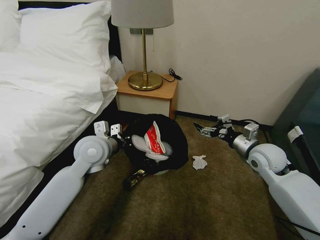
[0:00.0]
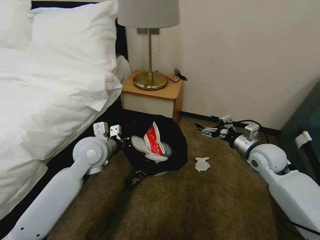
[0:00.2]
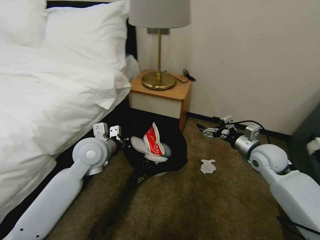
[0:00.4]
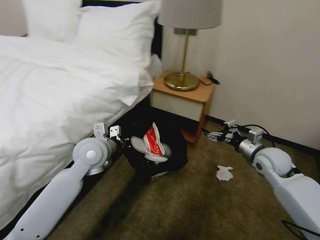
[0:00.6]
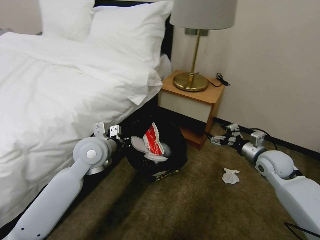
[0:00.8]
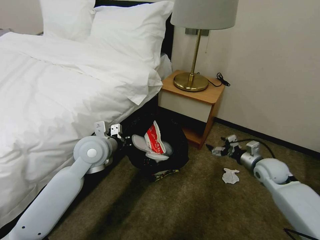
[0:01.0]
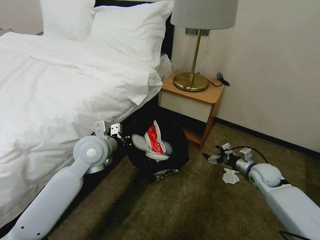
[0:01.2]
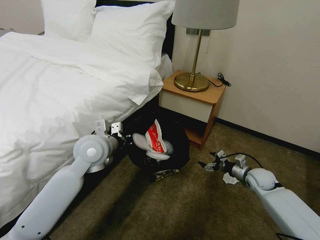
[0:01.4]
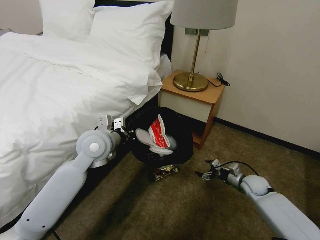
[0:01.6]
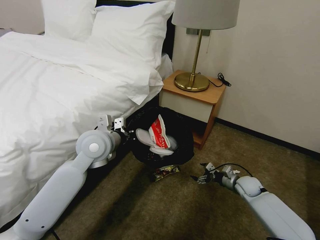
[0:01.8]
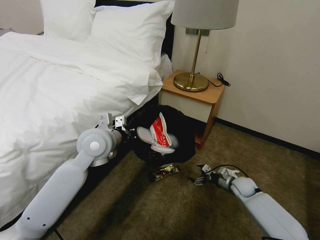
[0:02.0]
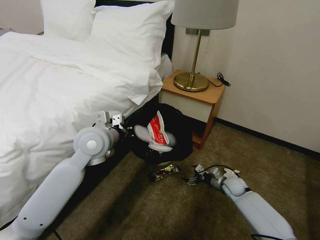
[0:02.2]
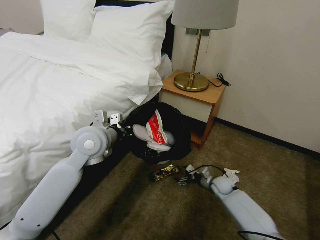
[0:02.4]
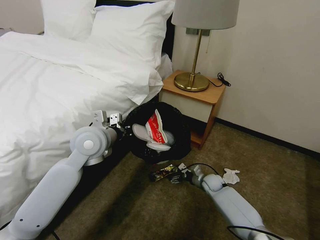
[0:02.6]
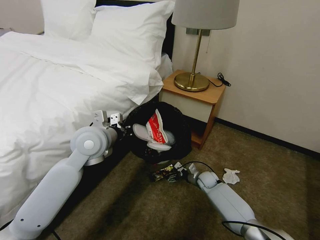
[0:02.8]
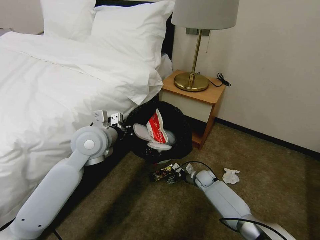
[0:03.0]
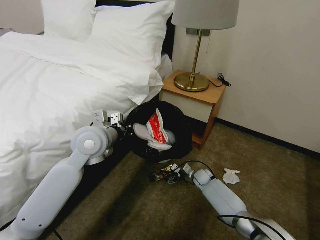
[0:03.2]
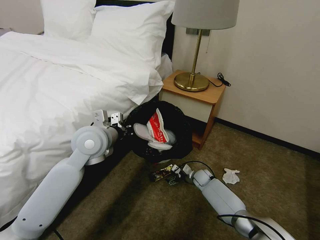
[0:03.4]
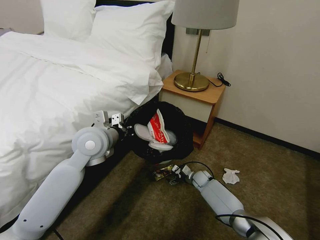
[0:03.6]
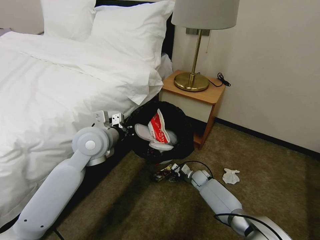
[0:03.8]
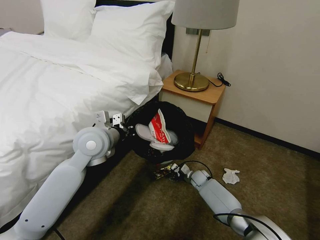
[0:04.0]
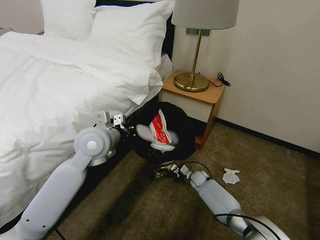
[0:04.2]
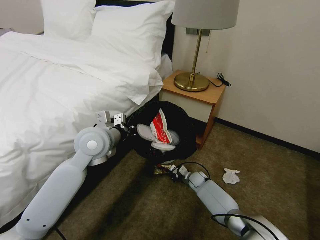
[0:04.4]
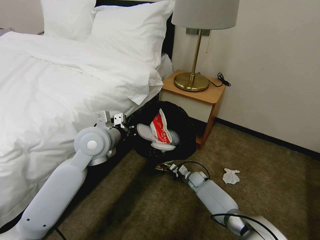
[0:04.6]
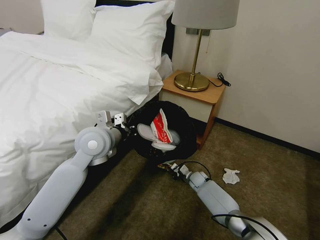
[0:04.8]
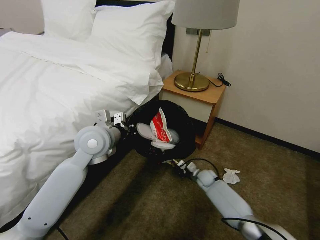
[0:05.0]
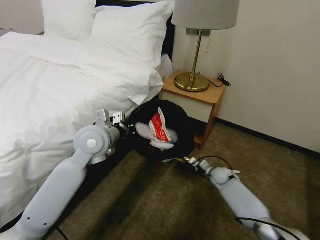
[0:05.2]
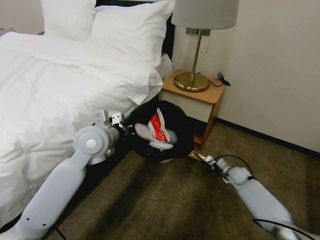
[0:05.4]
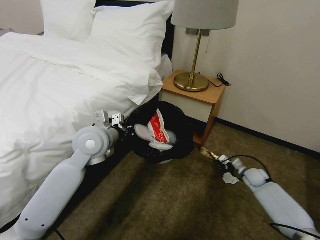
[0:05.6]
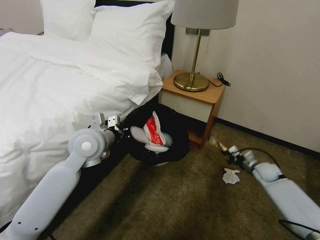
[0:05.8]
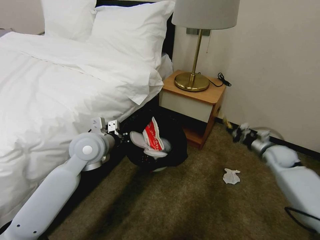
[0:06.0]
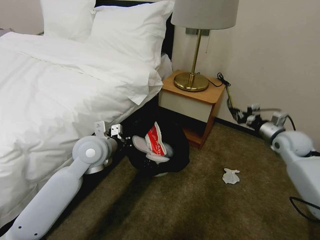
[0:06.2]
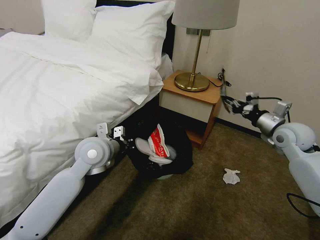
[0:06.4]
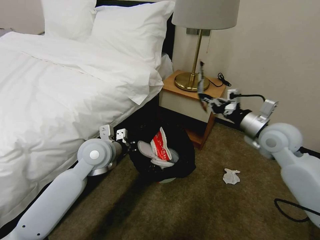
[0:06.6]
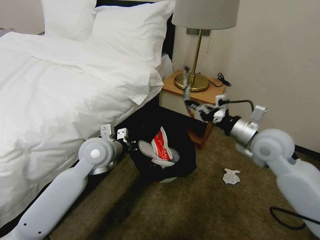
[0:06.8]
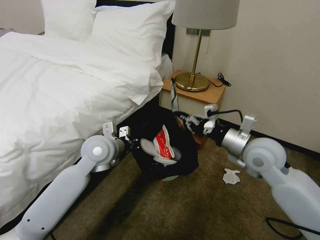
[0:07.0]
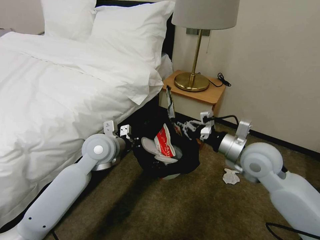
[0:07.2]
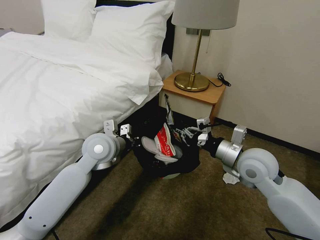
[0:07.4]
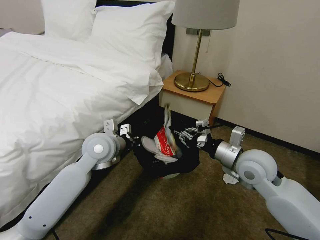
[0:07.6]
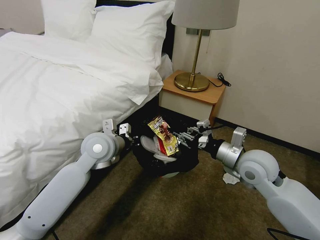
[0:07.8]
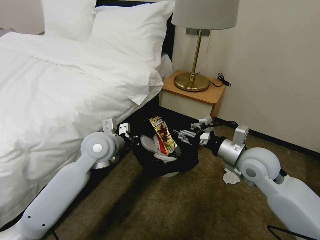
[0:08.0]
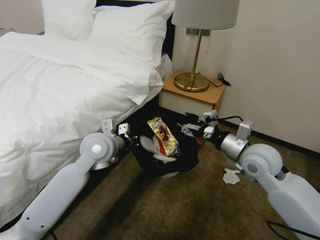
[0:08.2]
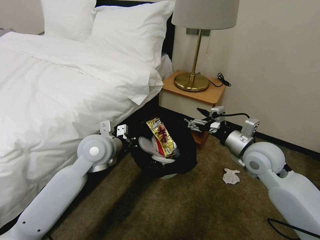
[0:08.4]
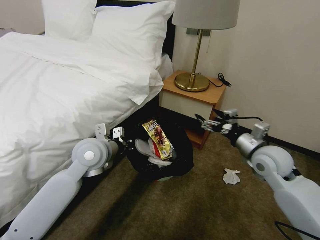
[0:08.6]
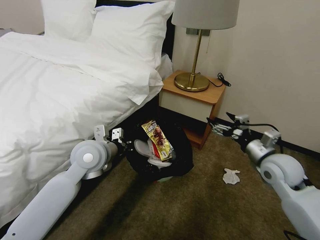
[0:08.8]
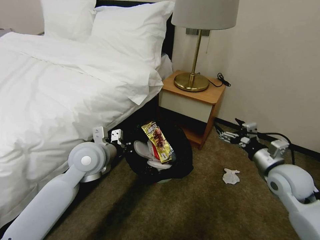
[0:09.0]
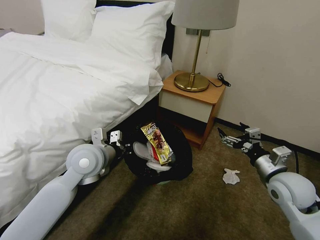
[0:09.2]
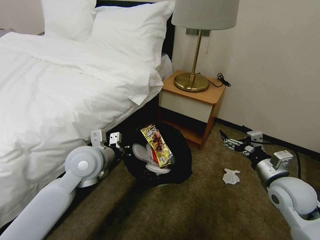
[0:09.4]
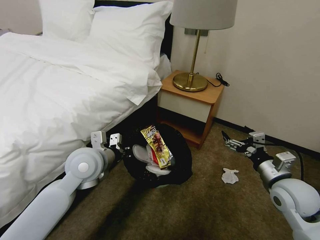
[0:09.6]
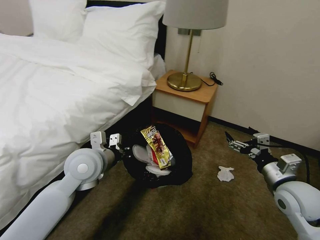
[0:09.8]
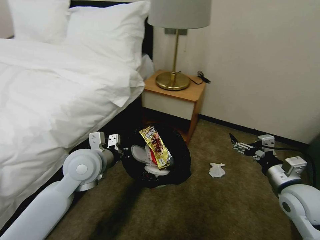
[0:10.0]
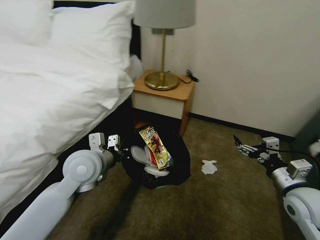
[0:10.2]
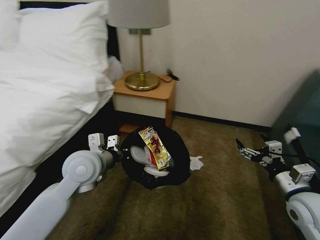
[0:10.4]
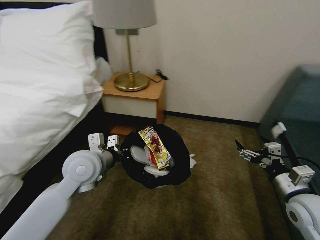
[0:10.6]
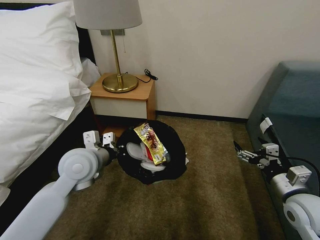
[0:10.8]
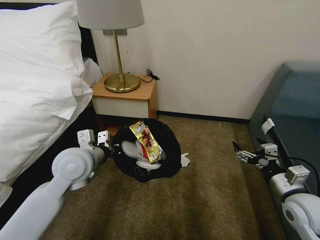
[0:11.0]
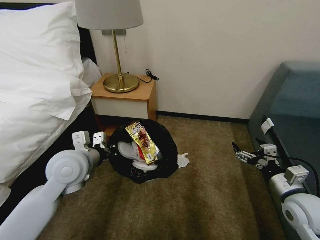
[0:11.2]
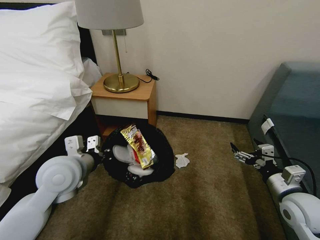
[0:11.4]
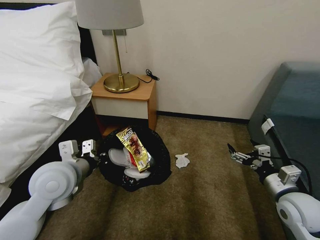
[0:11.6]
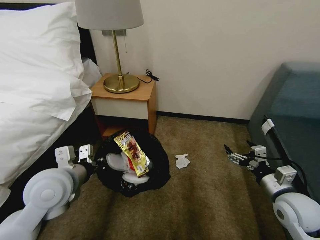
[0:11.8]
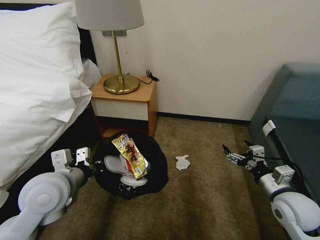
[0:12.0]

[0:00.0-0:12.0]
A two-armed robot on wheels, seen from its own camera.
Task of the whole recording: Pick up the trash bin, then pick up the garbage on the floor and place it into the trash bin.
0:00.0 to 0:01.6: The right gripper shifts approximately 20 cm downward.
0:01.6 to 0:03.0: The right gripper travels to the left and downward by some 20 cm.
0:03.0 to 0:04.4: The right gripper closes.
0:04.4 to 0:06.0: The right gripper goes about 35 cm to the right and upward.
0:06.0 to 0:07.6: The right gripper moves to the left, upward and backward, some 30 cm.
0:07.6 to 0:09.0: The right gripper shifts roughly 10 cm to the right, and opens up.
0:09.0 to 0:10.4: The right gripper heads backward, covering about 5 cm.
0:10.4 to 0:12.0: The left gripper heads backward and to the left, covering roughly 10 cm.

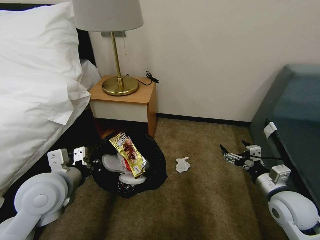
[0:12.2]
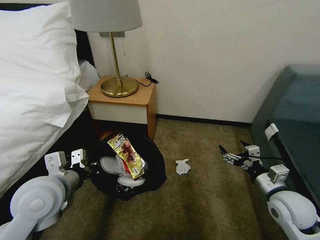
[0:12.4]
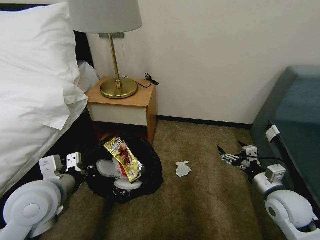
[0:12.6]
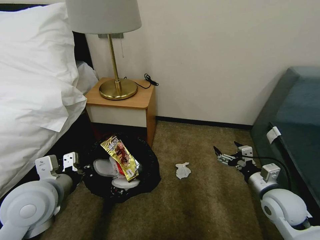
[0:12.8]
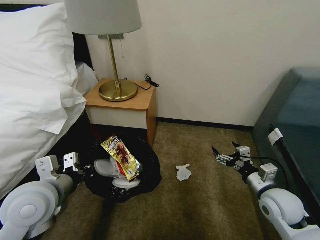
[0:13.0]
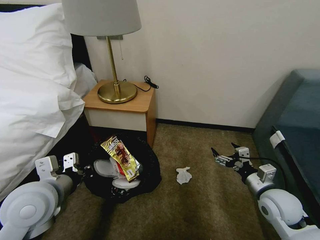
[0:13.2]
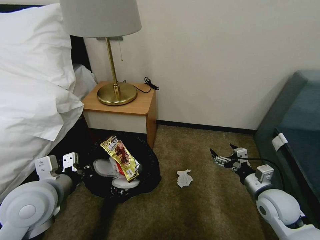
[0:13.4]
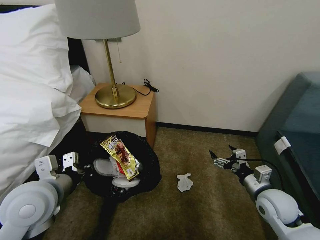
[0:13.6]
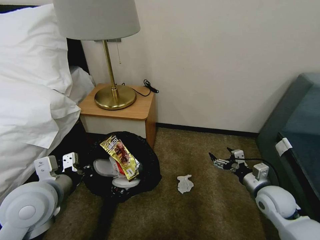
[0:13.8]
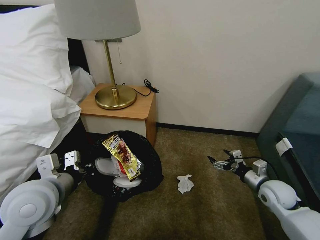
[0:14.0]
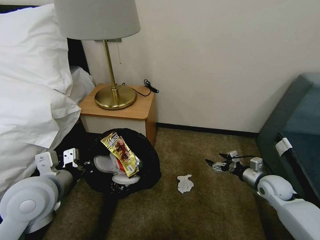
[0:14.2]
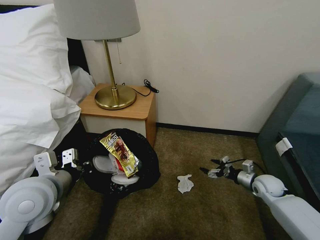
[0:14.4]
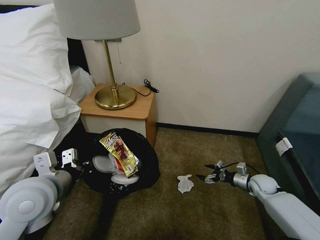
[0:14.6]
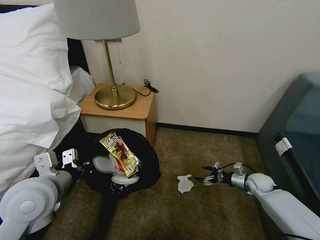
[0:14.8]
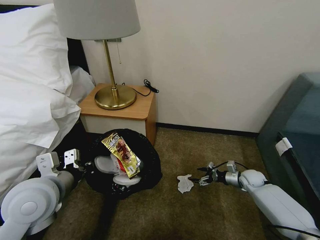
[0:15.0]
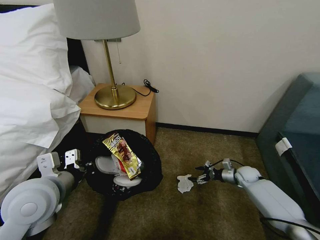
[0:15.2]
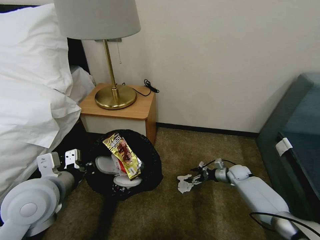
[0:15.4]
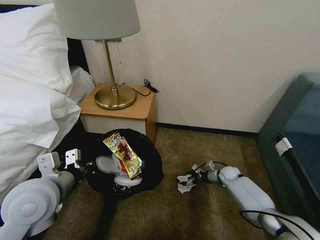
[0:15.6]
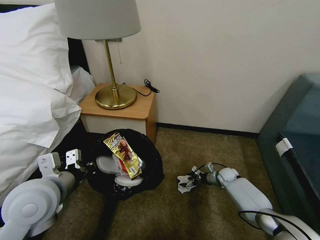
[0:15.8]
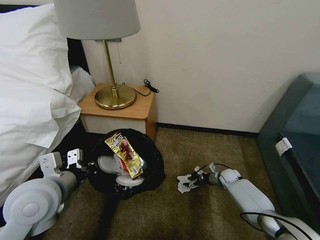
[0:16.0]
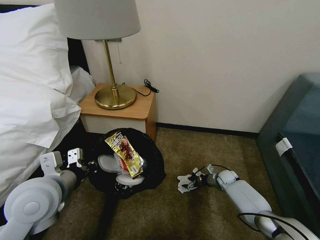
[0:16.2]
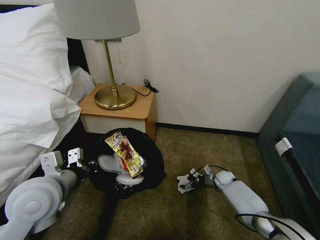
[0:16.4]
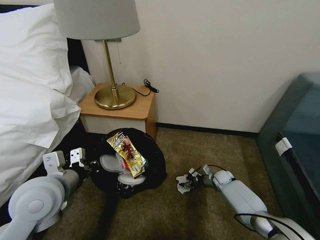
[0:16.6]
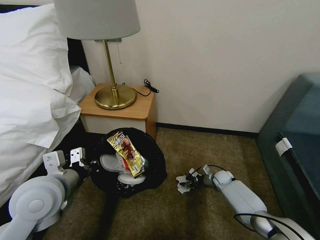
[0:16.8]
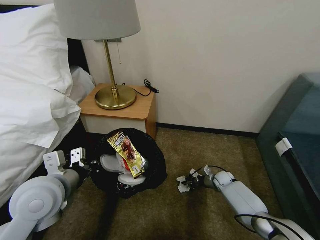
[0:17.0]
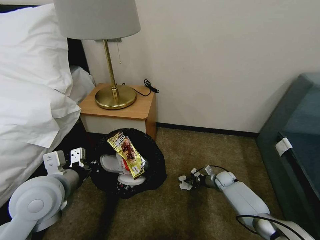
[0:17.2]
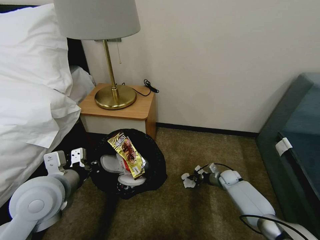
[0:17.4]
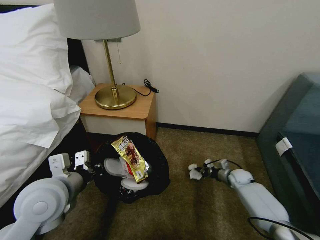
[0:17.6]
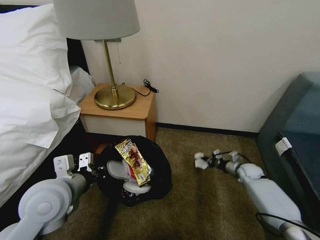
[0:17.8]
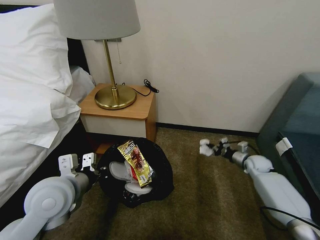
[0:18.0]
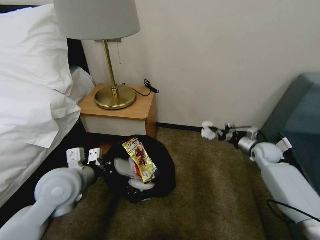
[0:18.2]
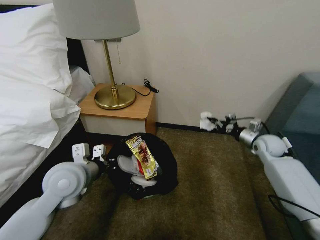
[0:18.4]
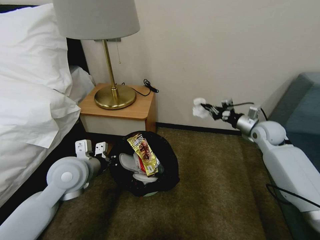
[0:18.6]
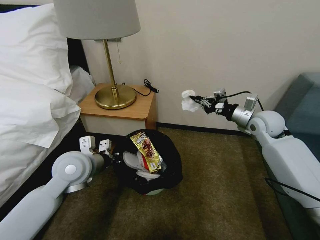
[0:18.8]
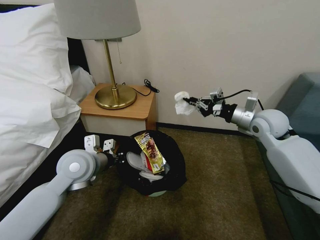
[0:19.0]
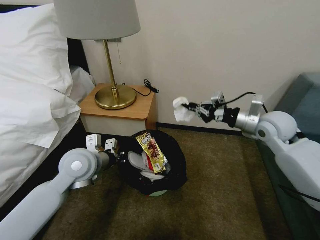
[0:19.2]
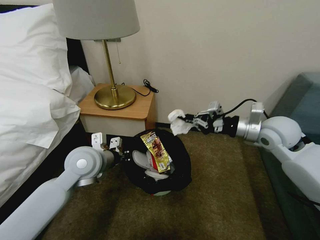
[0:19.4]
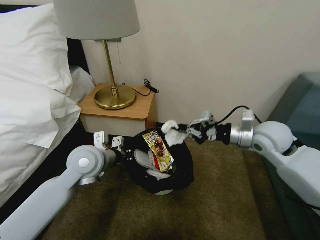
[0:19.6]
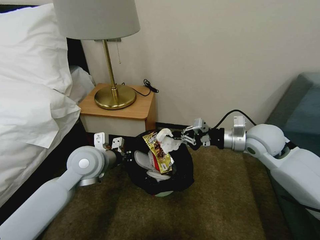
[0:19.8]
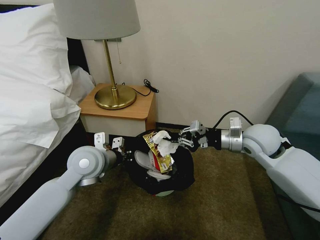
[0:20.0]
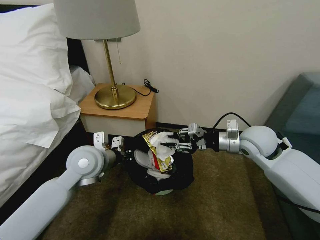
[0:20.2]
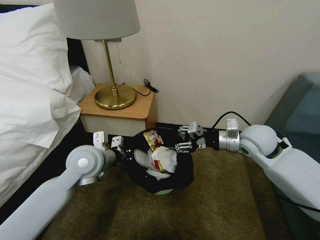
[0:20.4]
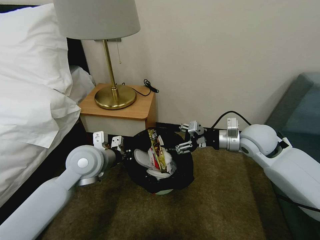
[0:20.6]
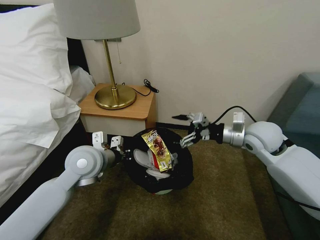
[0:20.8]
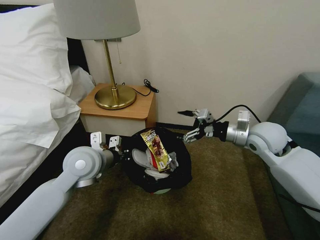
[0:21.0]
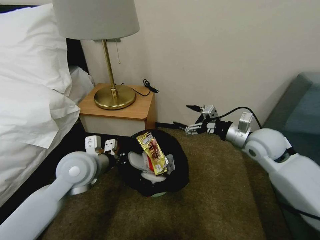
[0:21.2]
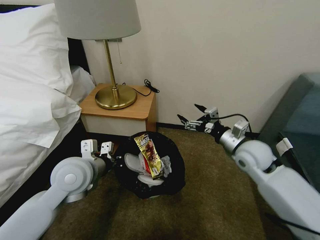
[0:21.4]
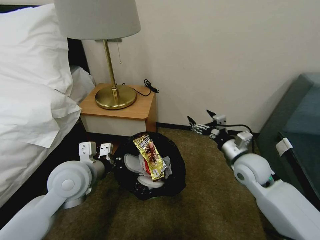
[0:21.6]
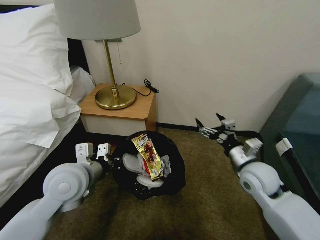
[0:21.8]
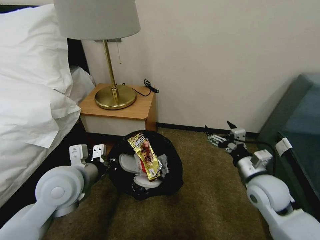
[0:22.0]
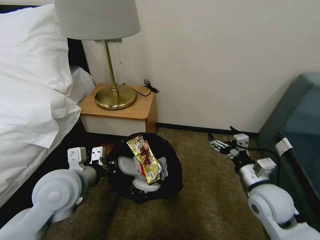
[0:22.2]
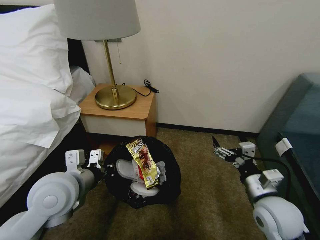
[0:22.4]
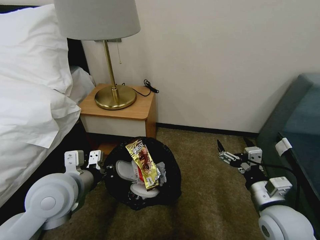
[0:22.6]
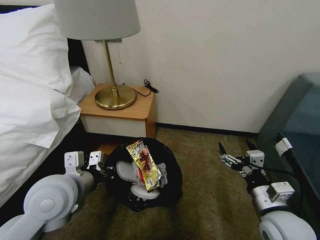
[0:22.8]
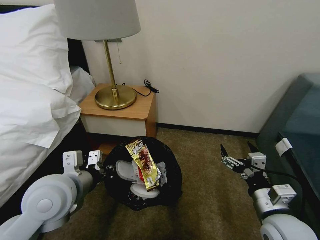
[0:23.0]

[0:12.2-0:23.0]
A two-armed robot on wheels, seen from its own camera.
Task of the whole recording: Pick up the trash bin, then pick up the garbage on the floor and place it into the trash bin.
0:12.2 to 0:13.8: The right gripper is displaced downward by approximately 5 cm.
0:13.8 to 0:15.2: The right gripper shifts approximately 20 cm forward and downward.
0:15.2 to 0:16.8: The right gripper heads to the left and downward, covering roughly 10 cm, and closes up.
0:16.8 to 0:18.4: The left gripper heads forward, covering about 5 cm. The right gripper is displaced upward by about 25 cm, and closes.
0:18.4 to 0:20.0: The left gripper heads forward, covering some 5 cm. The right gripper shifts approximately 20 cm to the left, upward and backward.
0:20.0 to 0:21.4: The right gripper goes approximately 5 cm downward, and opens up.
0:21.4 to 0:23.0: The right gripper travels backward by about 20 cm, while the left gripper shifts roughly 5 cm backward.
